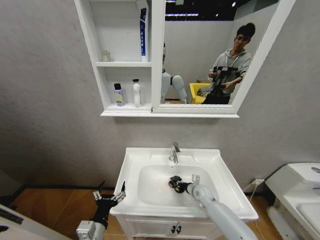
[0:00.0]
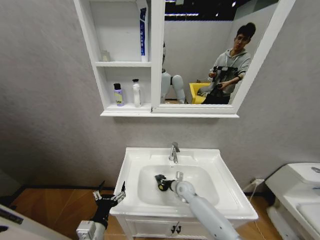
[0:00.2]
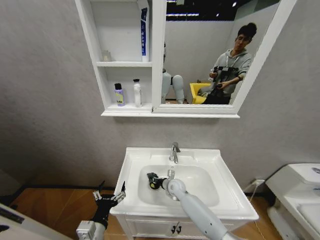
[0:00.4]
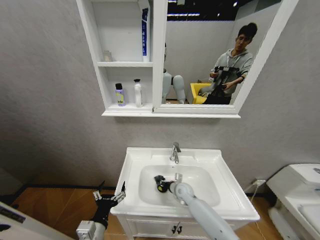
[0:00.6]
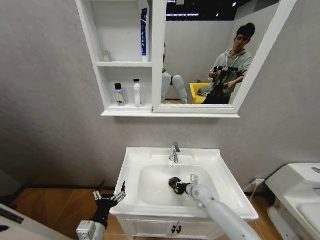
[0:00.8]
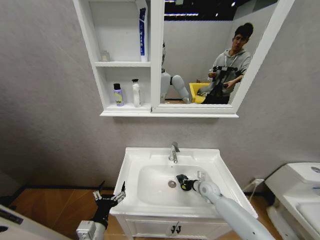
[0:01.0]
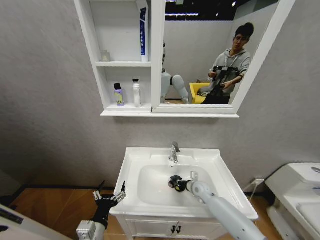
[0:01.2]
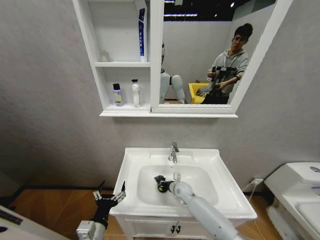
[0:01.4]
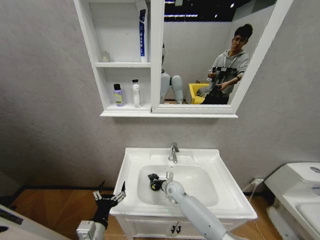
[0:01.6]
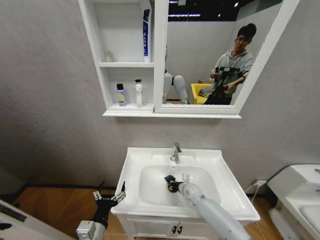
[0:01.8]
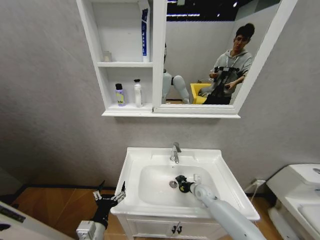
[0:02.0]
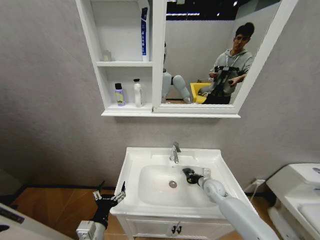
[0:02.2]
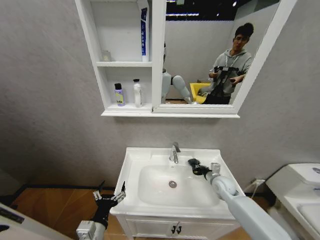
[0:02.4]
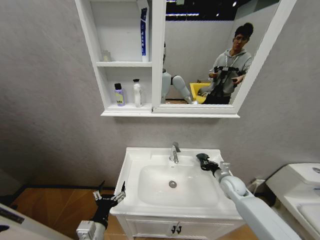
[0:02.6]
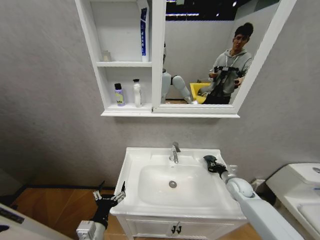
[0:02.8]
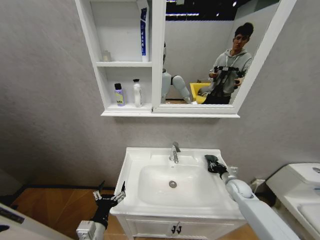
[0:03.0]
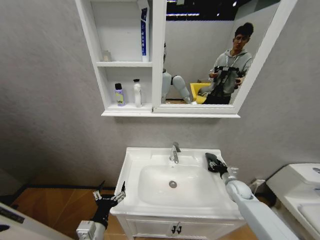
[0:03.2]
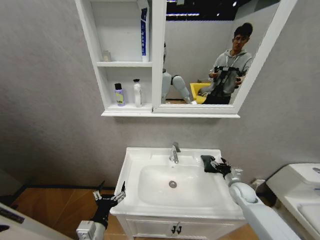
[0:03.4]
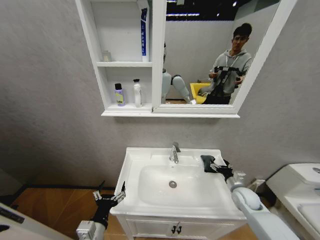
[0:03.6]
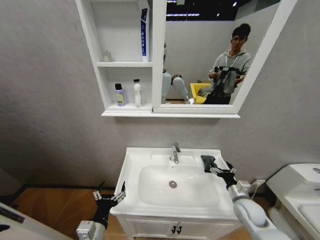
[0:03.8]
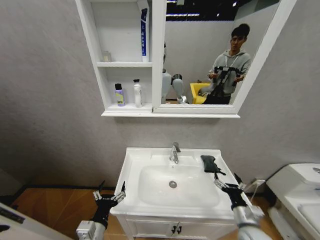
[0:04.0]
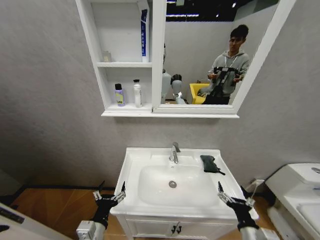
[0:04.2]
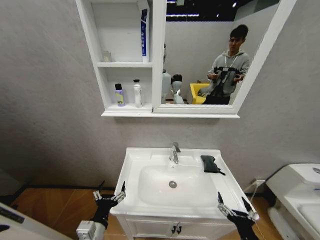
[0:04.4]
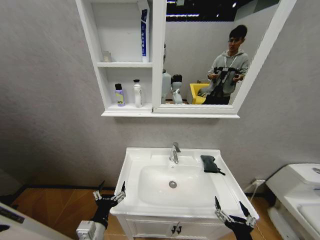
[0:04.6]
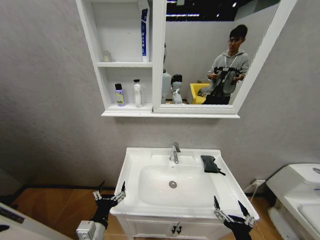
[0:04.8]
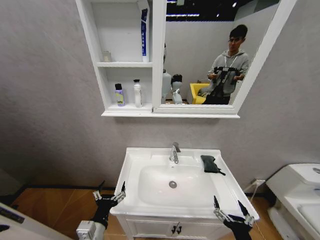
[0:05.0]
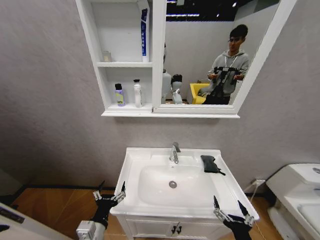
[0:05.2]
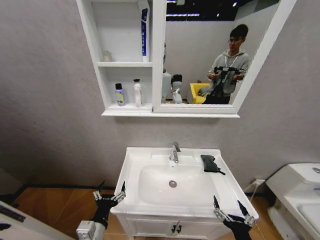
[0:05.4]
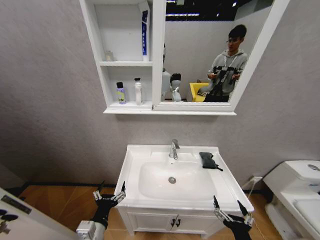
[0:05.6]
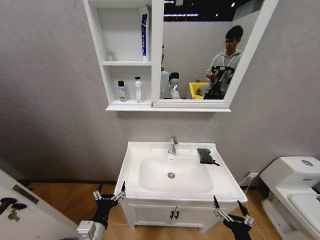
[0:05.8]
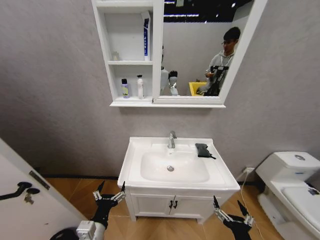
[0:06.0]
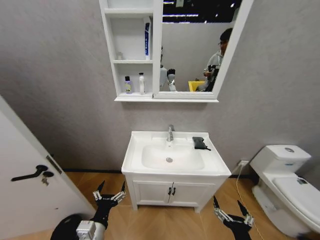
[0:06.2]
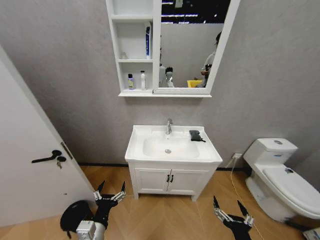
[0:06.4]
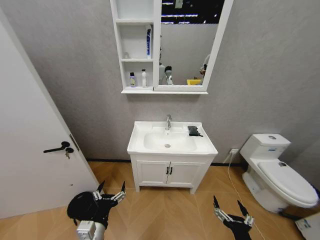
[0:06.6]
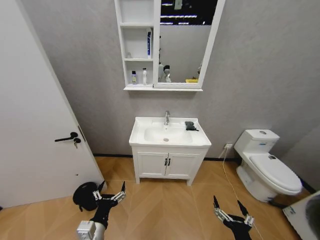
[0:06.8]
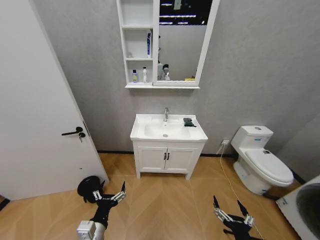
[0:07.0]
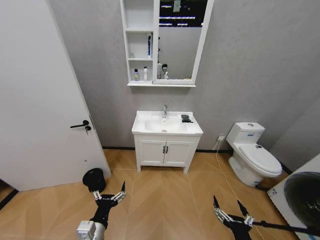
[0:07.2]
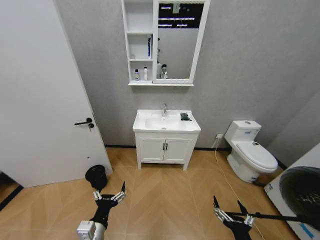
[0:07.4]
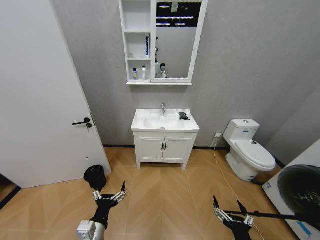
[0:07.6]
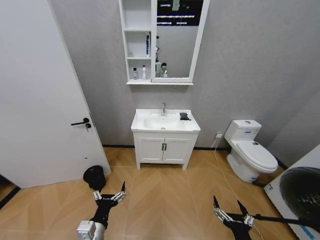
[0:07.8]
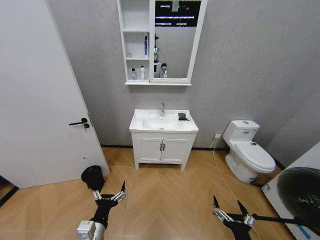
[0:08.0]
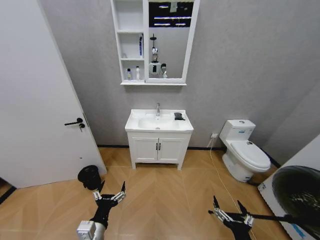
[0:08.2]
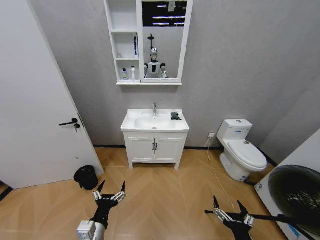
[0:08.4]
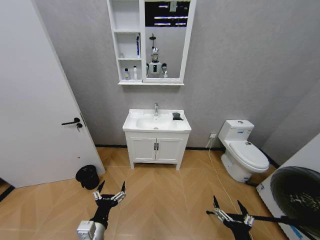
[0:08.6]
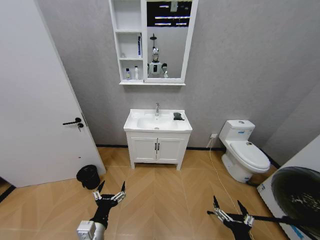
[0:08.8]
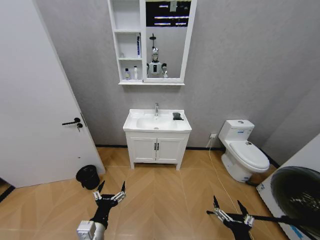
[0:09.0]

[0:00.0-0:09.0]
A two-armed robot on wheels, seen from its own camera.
Task of the whole recording: Move facial cleanser and shampoo from washbasin to cabinet, then wipe washbasin with towel.
0:00.0 to 0:01.6: The right gripper swings left and right, about 20 cm each way, with 2 reversals.
0:01.6 to 0:03.0: The right gripper travels to the right by about 30 cm.
0:03.0 to 0:04.4: The right gripper travels backward and to the left by some 35 cm, and opens its fingers.
0:07.6 to 0:09.0: Neither gripper changes place.
